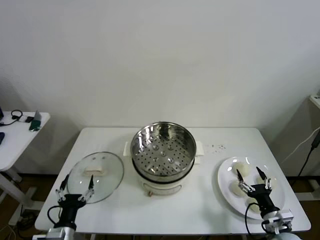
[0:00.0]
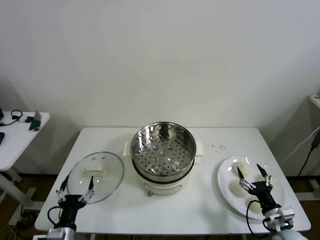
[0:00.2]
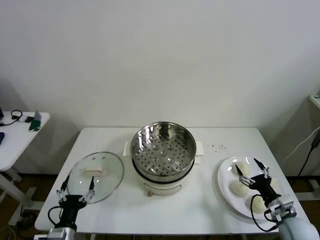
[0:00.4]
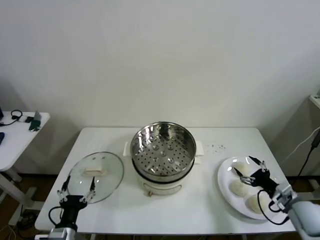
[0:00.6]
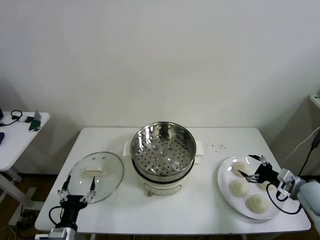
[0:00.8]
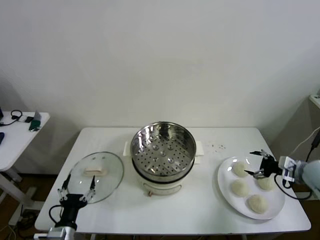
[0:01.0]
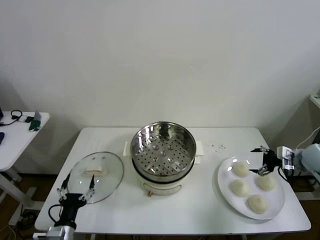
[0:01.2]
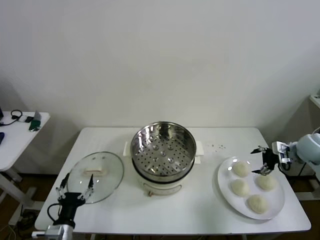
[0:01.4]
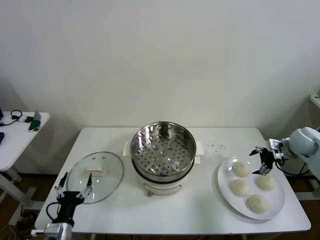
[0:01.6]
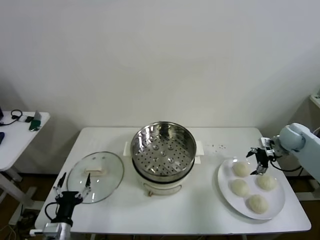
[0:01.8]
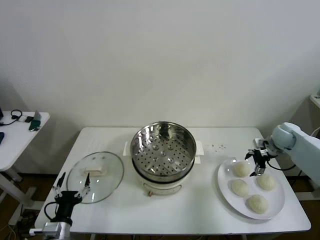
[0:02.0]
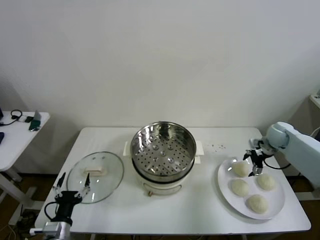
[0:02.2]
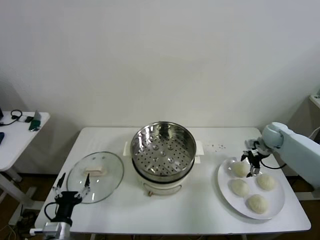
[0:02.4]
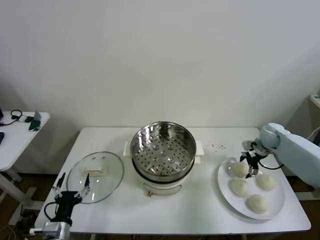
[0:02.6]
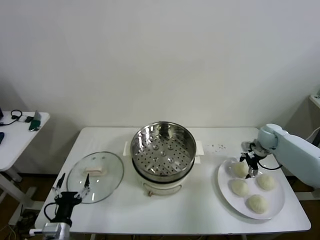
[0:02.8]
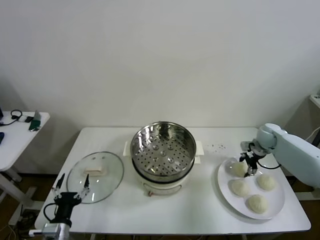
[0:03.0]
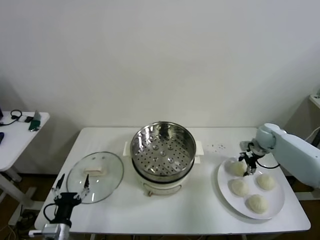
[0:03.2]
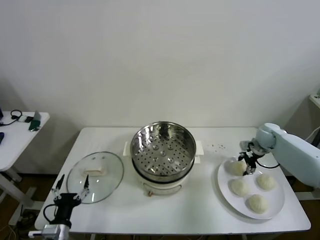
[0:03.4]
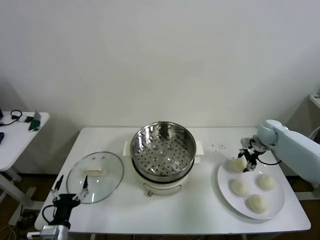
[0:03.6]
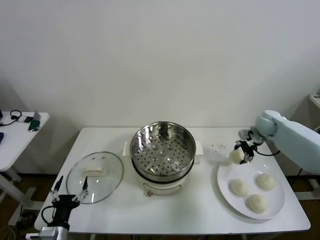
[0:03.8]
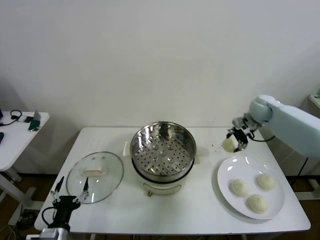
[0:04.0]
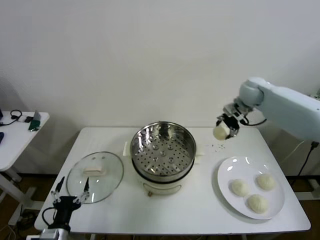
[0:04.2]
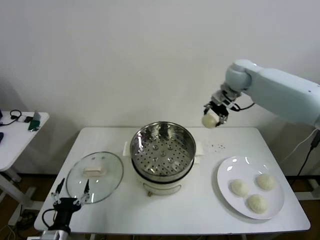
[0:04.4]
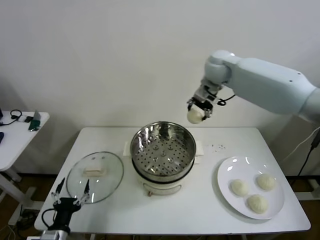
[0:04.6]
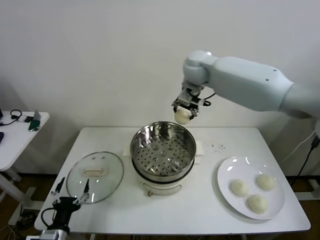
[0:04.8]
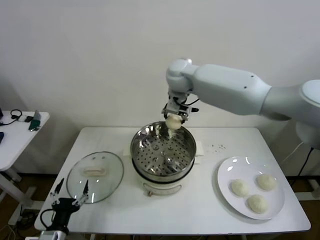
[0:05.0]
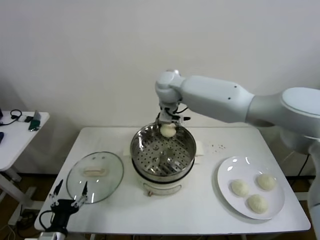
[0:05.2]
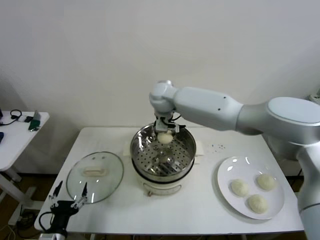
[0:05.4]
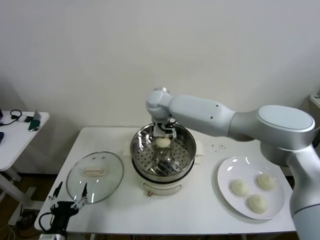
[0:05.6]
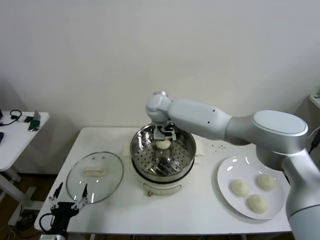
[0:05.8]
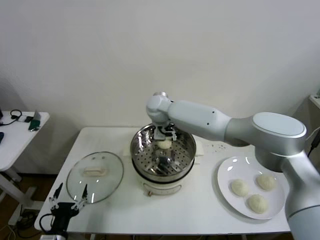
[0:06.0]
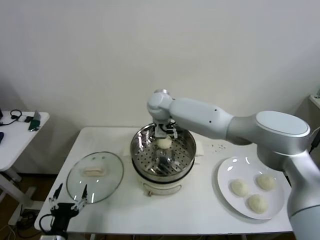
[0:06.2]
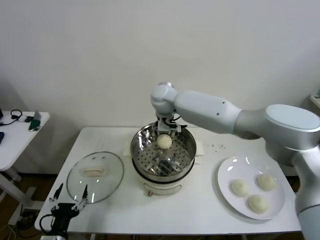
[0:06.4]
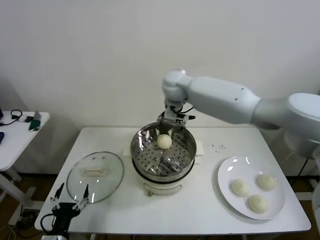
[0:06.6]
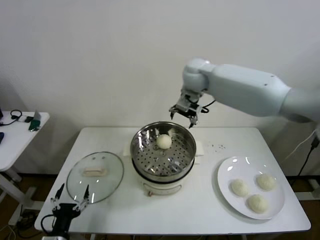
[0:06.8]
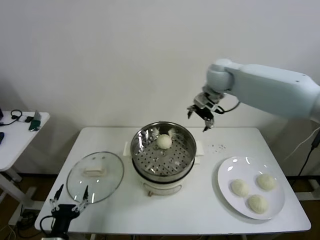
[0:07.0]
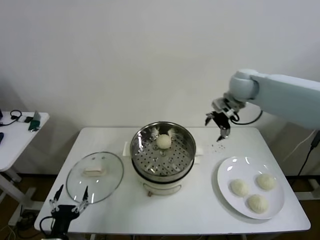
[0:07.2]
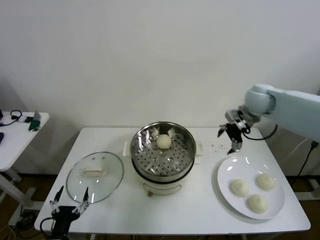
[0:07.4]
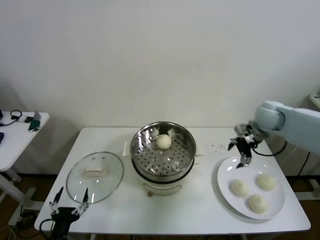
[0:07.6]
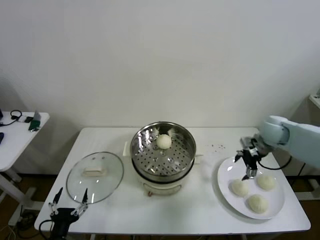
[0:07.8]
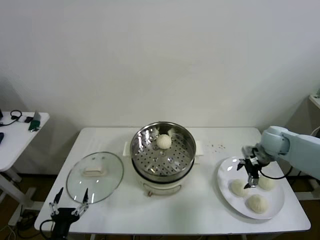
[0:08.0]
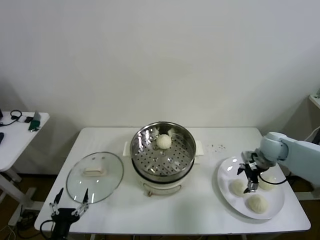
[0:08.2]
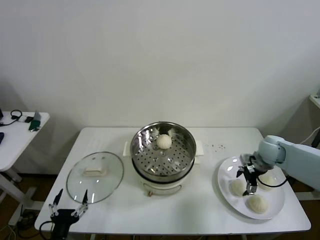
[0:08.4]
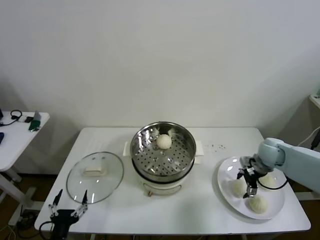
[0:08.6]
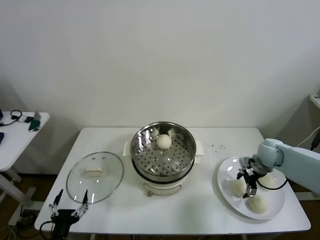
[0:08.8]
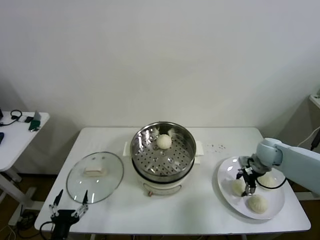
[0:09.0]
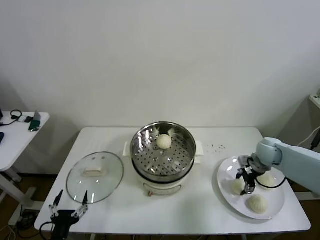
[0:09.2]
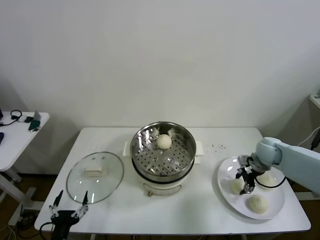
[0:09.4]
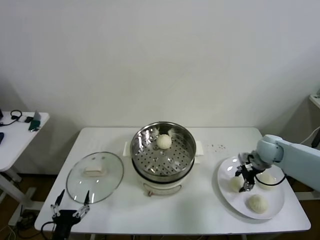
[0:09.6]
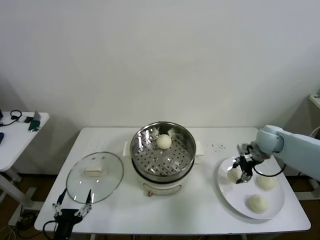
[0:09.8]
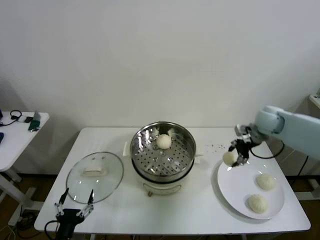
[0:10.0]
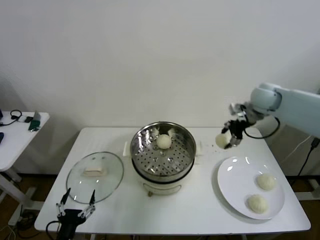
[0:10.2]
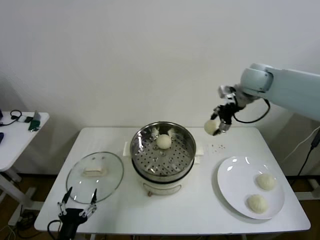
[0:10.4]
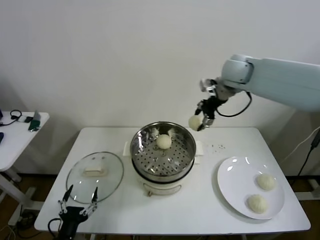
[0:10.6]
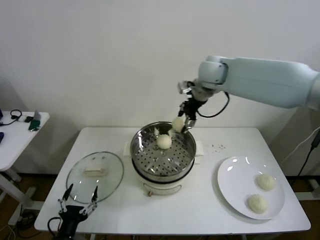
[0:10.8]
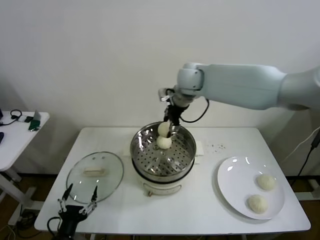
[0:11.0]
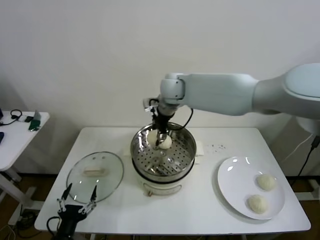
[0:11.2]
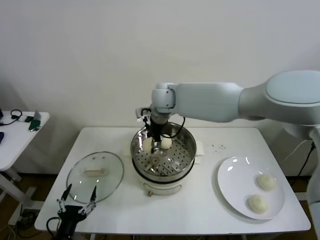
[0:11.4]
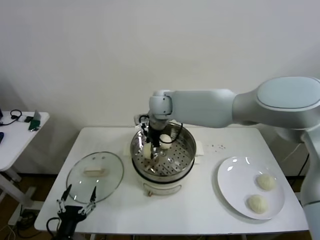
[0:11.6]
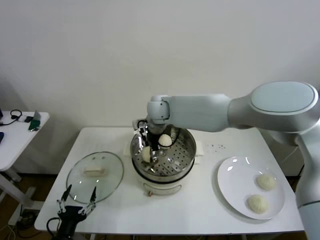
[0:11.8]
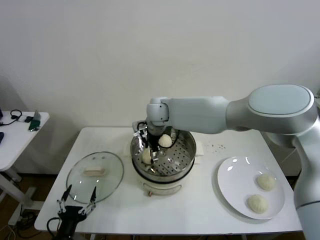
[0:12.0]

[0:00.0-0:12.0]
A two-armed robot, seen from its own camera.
Step, 0:00.0 to 0:03.4: Grasp the baozi in the plate with right gripper.
Step, 0:03.6 to 0:06.0: Place the baozi on the steamer with right gripper.
Step, 0:06.4 to 0:09.0: Grasp the baozi in the plate with right gripper.
Step, 0:09.4 to 0:12.0: Place the baozi on the steamer with right gripper.
0:01.6 to 0:03.0: The right gripper goes some 10 cm forward, to the left and downward, and closes.
0:03.0 to 0:04.4: The right gripper heads upward and to the left, covering roughly 30 cm.
0:04.4 to 0:06.0: The right gripper moves to the left and downward, approximately 30 cm, and opens up.
0:06.0 to 0:07.6: The right gripper is displaced to the right by approximately 35 cm.
0:07.6 to 0:09.0: The right gripper is displaced downward by about 15 cm, and closes its fingers.
0:09.0 to 0:10.4: The right gripper shifts some 25 cm upward and to the left.
0:10.4 to 0:12.0: The right gripper shifts roughly 30 cm to the left, and opens up.

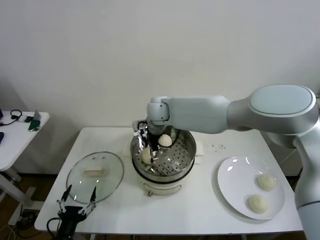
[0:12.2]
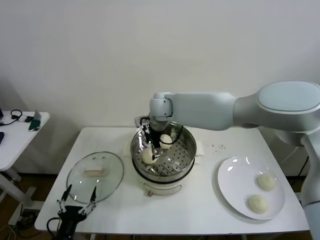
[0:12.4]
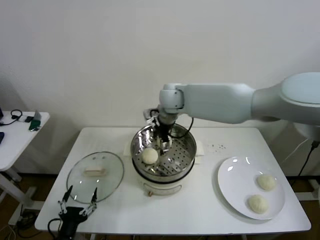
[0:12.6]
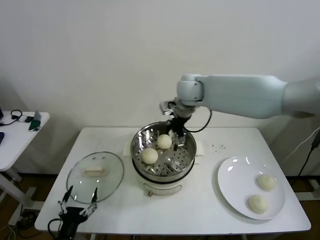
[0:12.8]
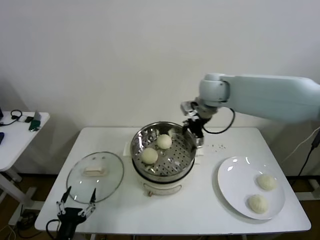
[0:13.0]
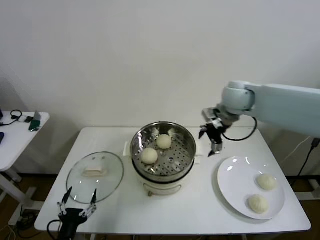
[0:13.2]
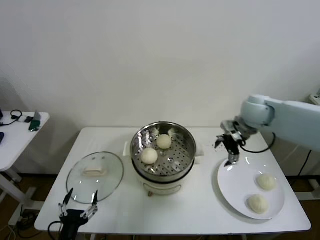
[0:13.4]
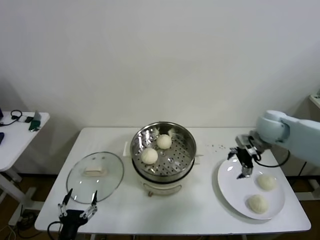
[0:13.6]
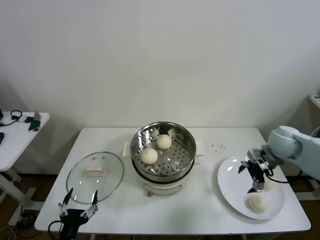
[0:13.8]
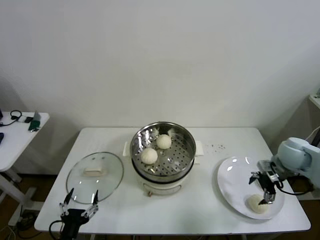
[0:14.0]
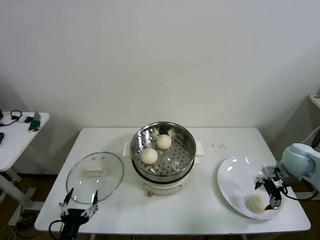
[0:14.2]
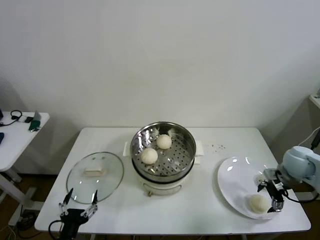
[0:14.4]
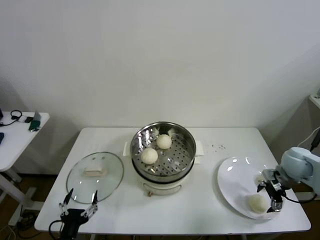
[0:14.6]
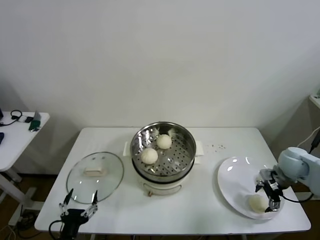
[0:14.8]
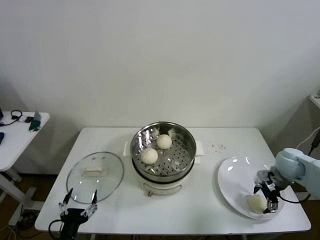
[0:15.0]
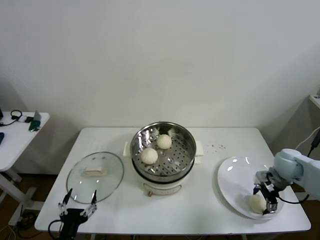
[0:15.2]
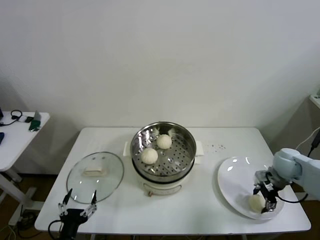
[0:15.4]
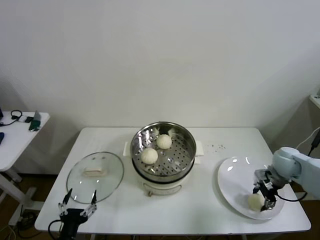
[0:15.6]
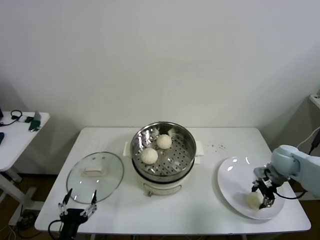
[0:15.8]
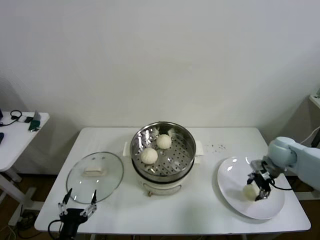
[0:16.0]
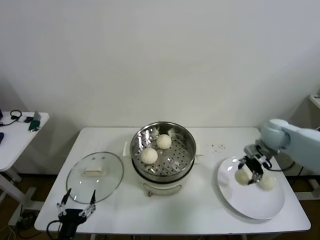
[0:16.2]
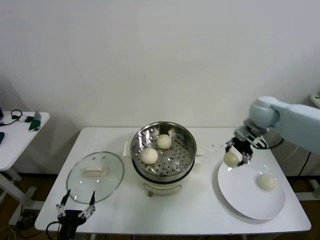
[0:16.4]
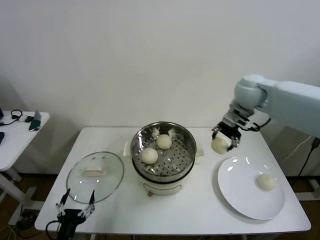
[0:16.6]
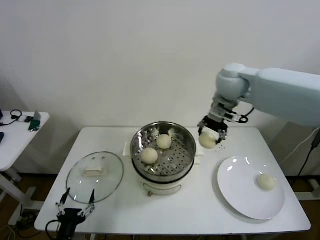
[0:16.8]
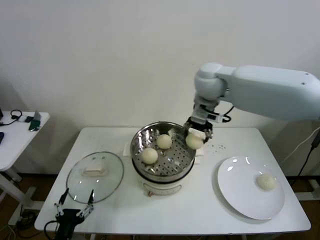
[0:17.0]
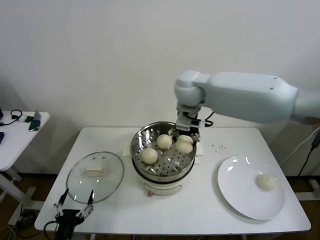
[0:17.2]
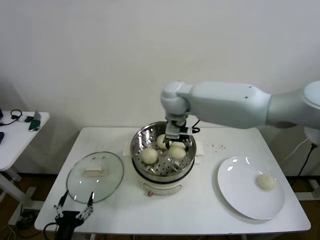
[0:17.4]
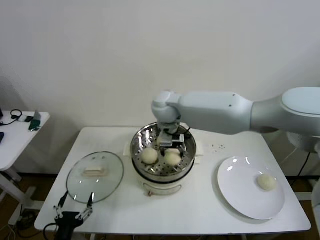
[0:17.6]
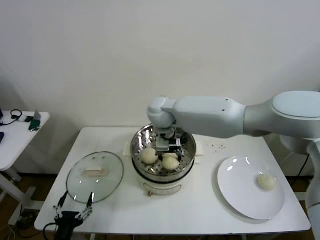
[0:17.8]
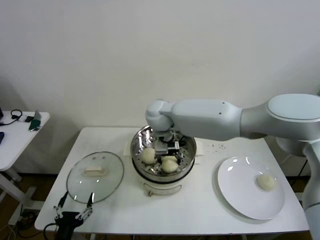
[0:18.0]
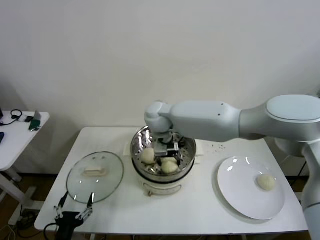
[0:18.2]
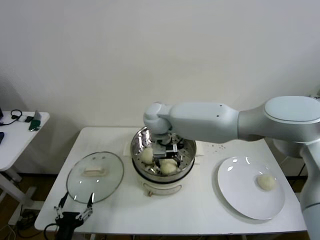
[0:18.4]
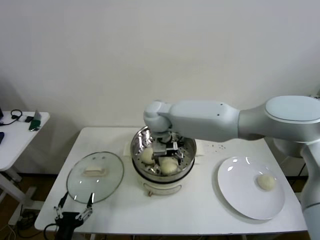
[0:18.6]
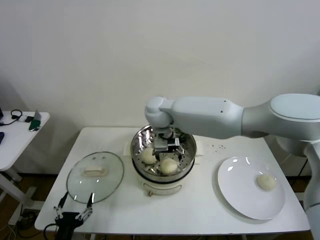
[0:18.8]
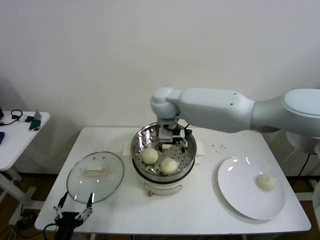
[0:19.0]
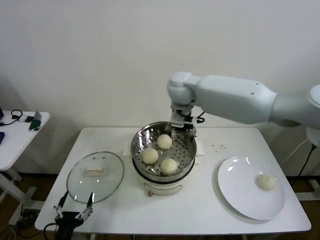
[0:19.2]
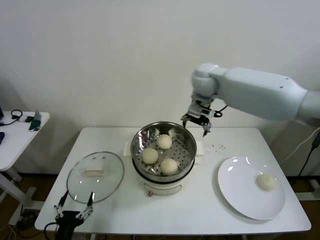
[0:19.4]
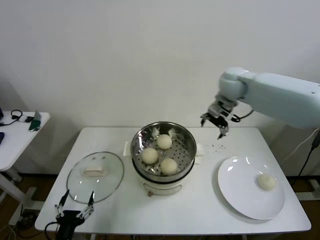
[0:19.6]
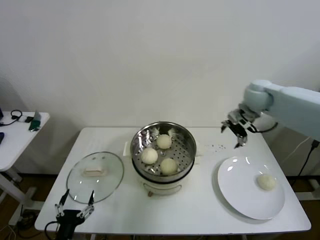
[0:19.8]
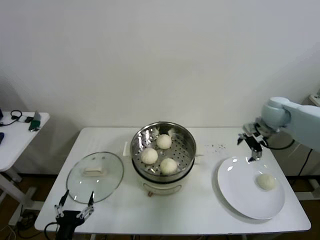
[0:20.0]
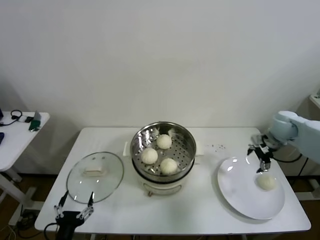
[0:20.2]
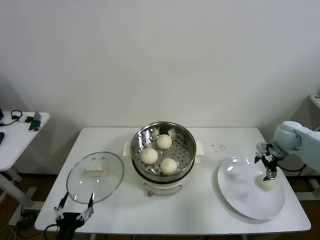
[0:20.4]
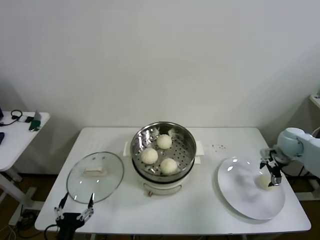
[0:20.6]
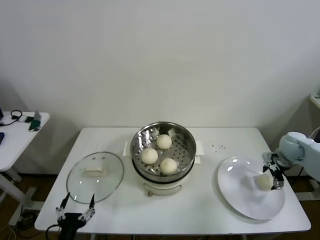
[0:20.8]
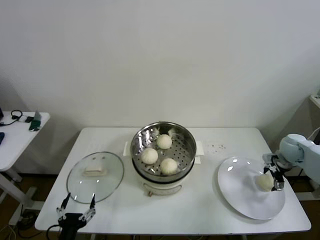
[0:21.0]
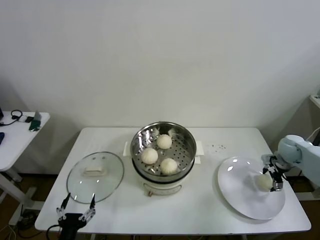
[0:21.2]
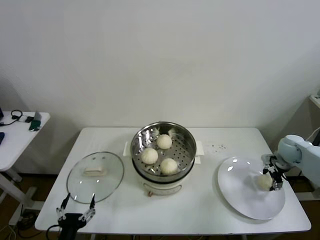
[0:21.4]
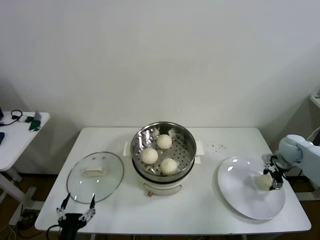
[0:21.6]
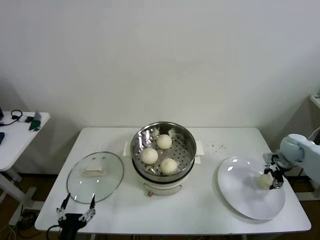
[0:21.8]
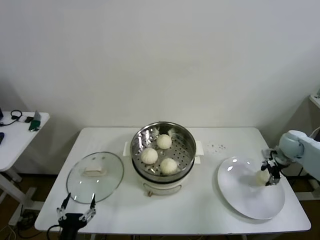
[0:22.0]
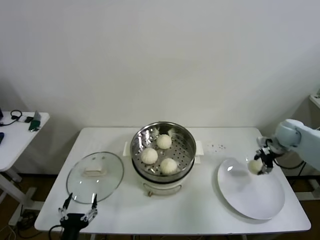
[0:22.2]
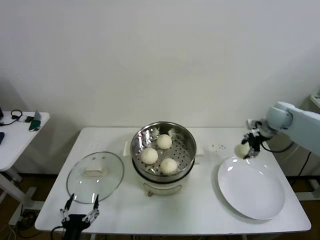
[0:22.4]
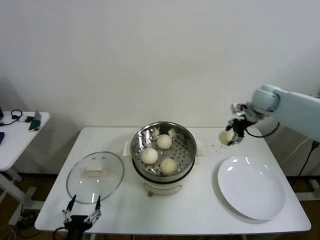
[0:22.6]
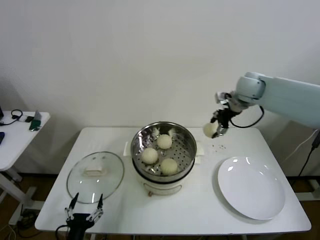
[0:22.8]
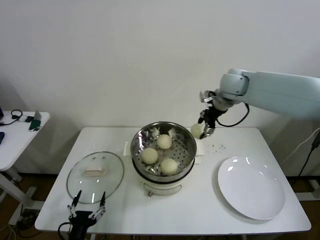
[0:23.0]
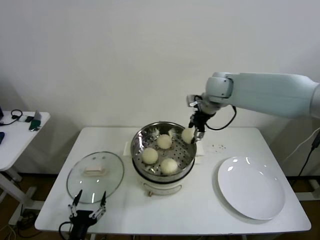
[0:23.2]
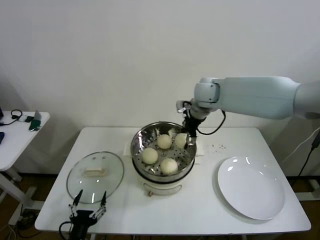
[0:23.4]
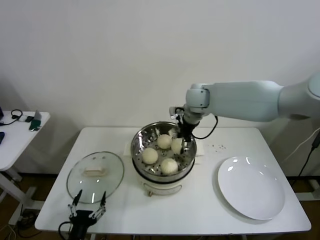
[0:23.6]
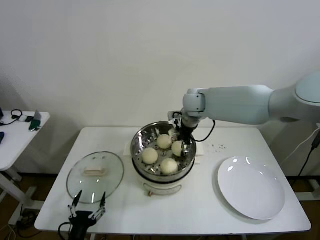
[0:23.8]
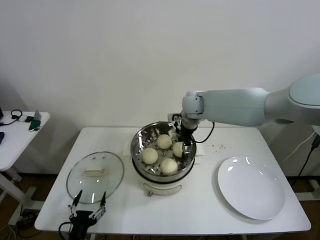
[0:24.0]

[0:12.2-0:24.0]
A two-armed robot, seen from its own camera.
Step, 0:12.2 to 0:15.2: Grasp the baozi in the plate with right gripper.
Step, 0:15.4 to 0:18.8: Place the baozi on the steamer with right gripper.
Step, 0:19.0 to 0:21.4: Grasp the baozi in the plate with right gripper.
0:12.2 to 0:13.6: The right gripper goes about 35 cm to the right.
0:13.6 to 0:15.2: The right gripper shifts about 15 cm downward, to the right and backward.
0:15.2 to 0:16.6: The right gripper heads upward, to the left and forward, covering about 30 cm, and closes.
0:16.6 to 0:18.2: The right gripper goes about 30 cm to the left.
0:18.2 to 0:19.6: The right gripper heads to the right, covering approximately 25 cm, and opens.
0:19.6 to 0:21.0: The right gripper shifts roughly 35 cm to the right and downward.
0:21.0 to 0:22.6: The right gripper is displaced upward, to the left and forward by about 20 cm, and closes.
0:22.6 to 0:24.0: The right gripper shifts some 25 cm to the left.
